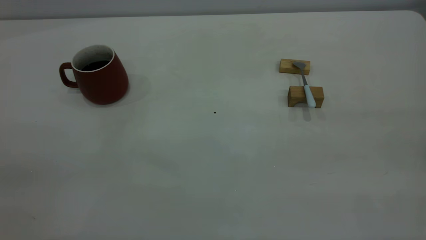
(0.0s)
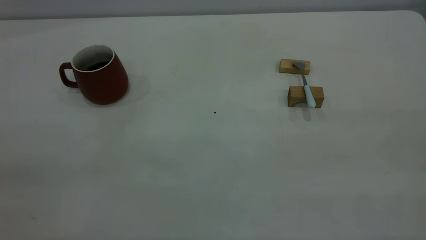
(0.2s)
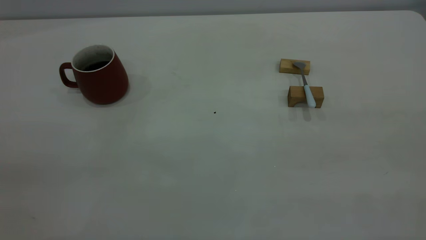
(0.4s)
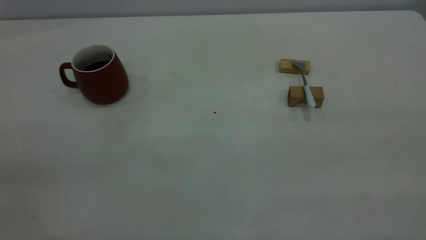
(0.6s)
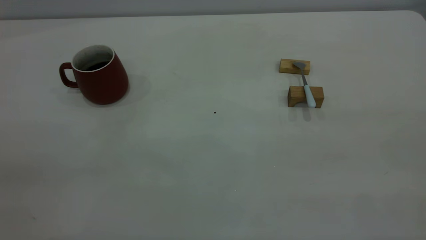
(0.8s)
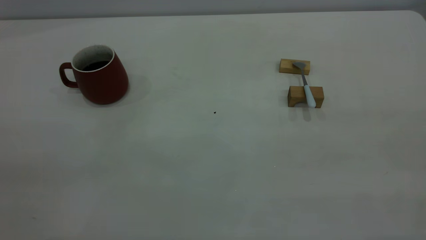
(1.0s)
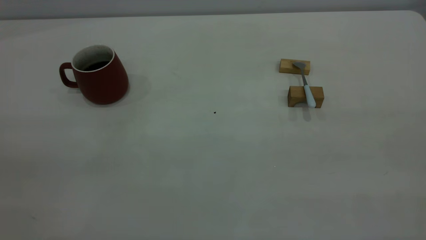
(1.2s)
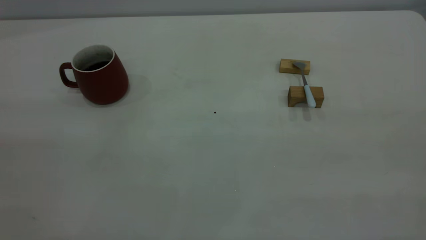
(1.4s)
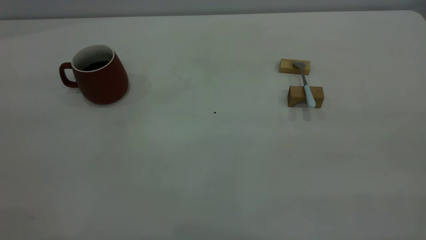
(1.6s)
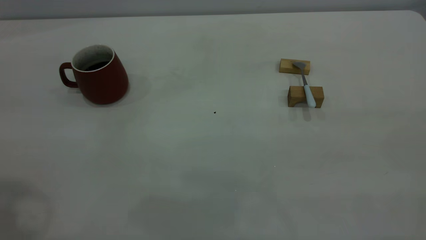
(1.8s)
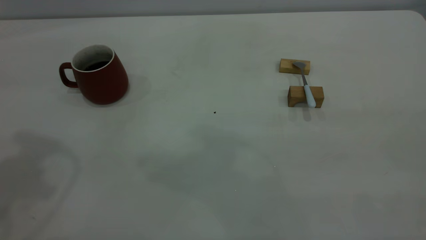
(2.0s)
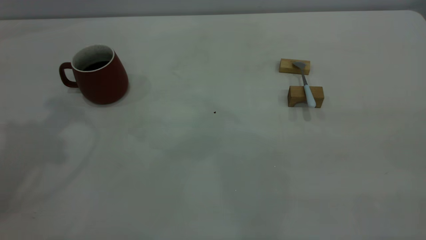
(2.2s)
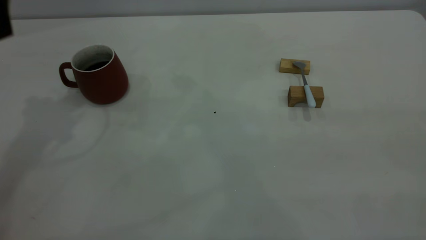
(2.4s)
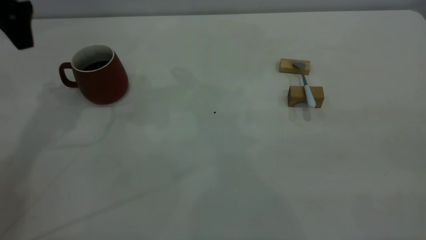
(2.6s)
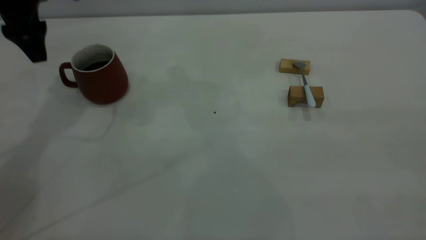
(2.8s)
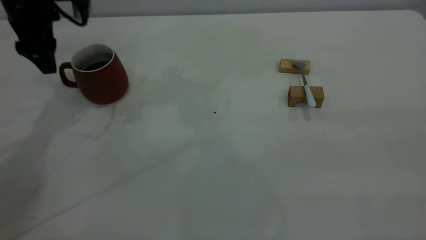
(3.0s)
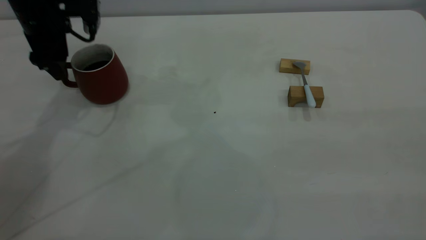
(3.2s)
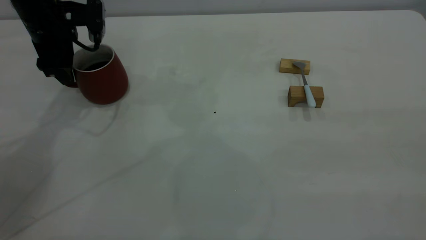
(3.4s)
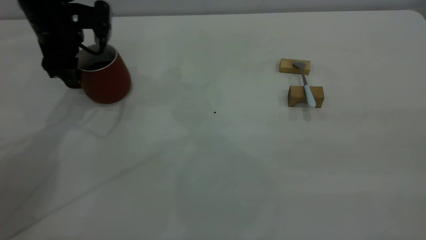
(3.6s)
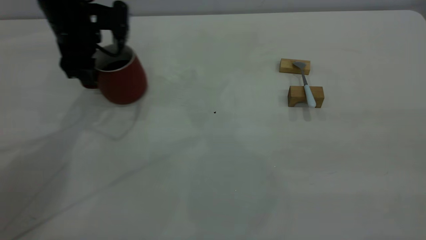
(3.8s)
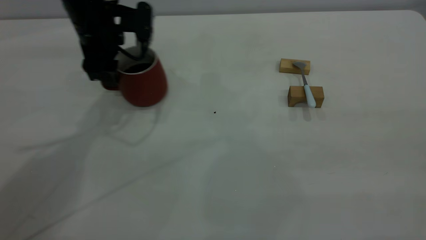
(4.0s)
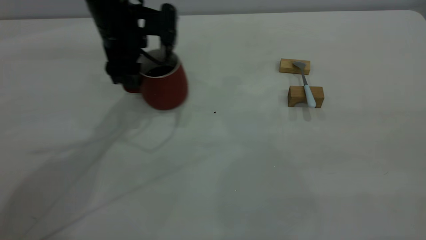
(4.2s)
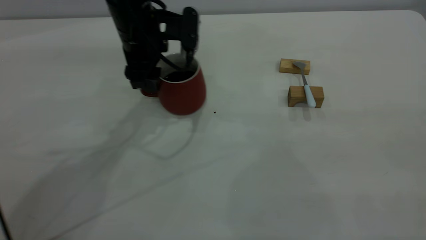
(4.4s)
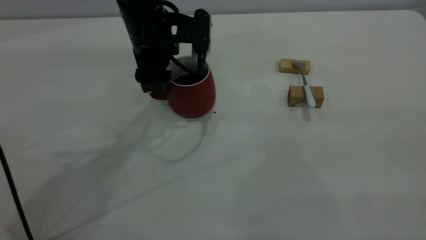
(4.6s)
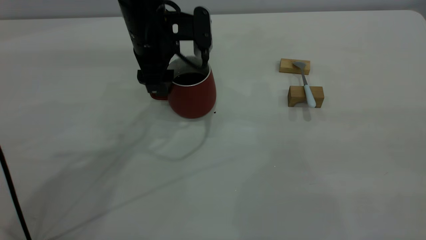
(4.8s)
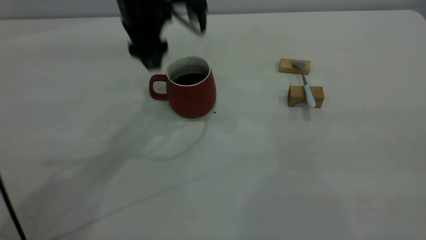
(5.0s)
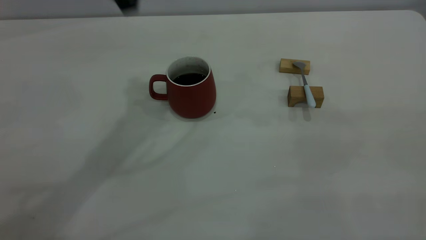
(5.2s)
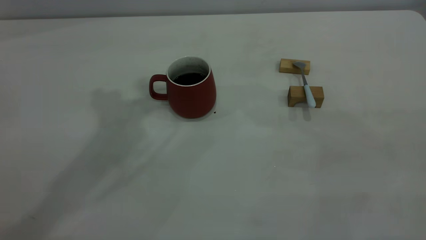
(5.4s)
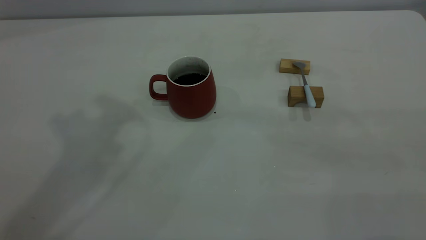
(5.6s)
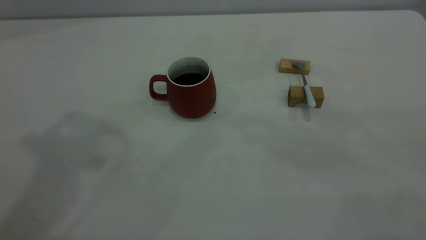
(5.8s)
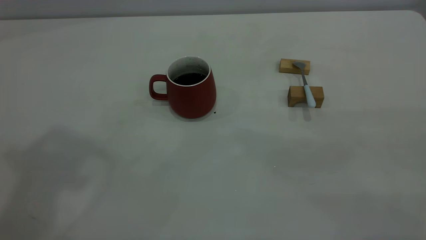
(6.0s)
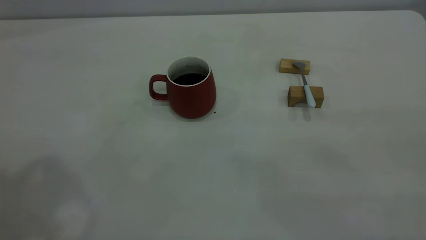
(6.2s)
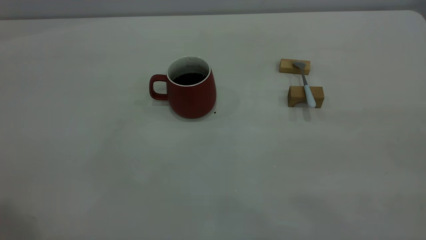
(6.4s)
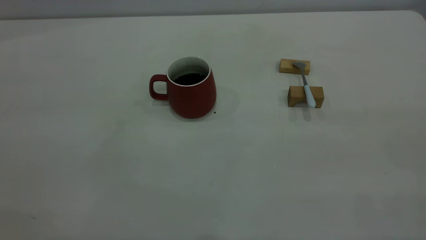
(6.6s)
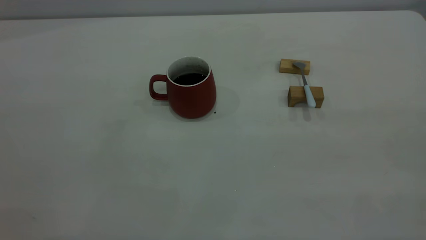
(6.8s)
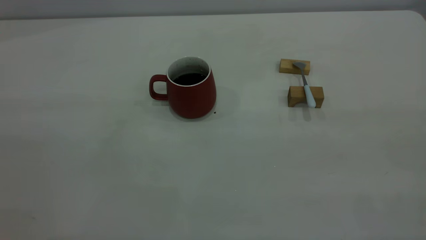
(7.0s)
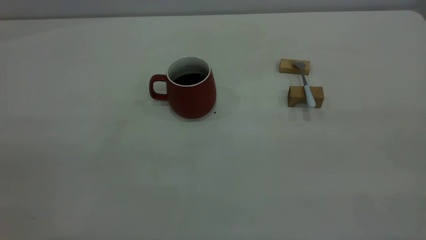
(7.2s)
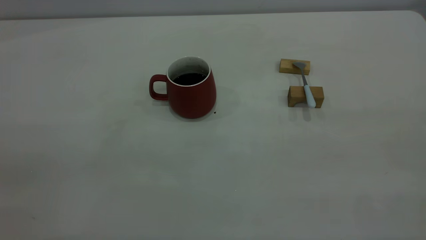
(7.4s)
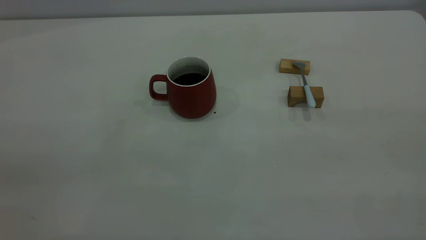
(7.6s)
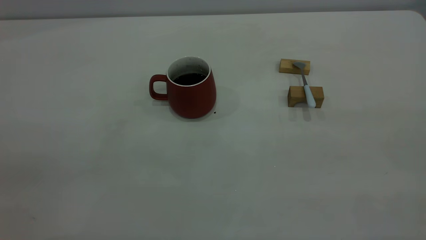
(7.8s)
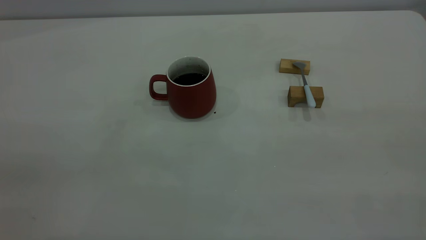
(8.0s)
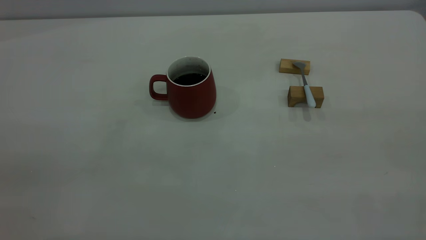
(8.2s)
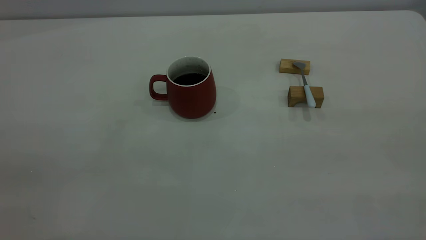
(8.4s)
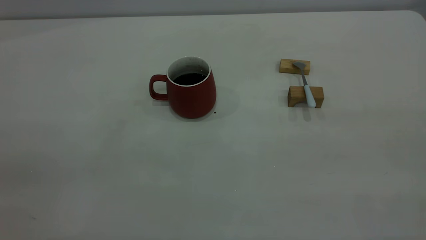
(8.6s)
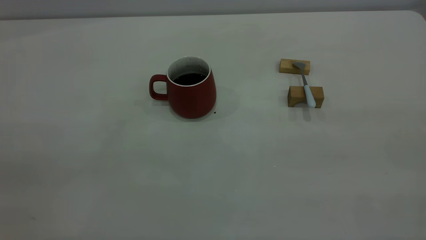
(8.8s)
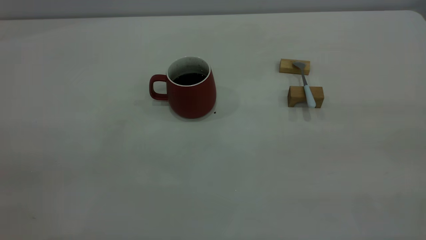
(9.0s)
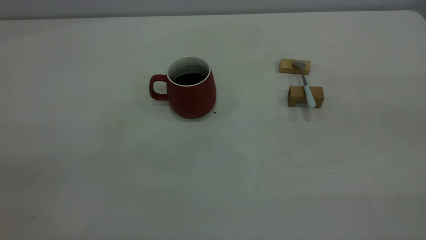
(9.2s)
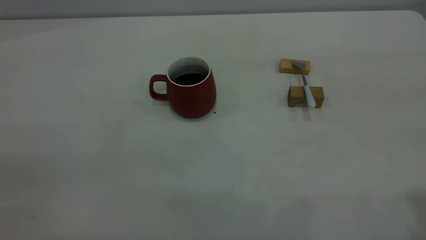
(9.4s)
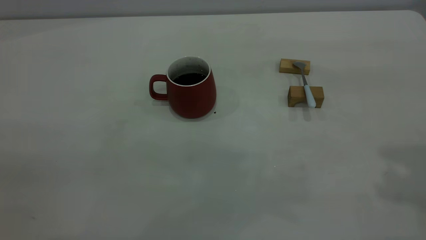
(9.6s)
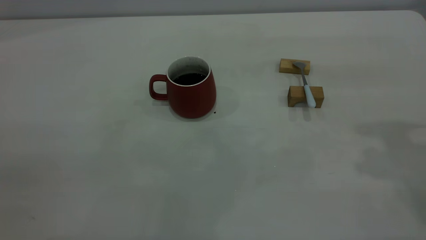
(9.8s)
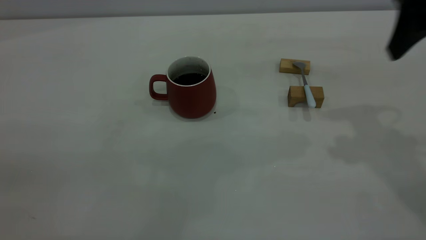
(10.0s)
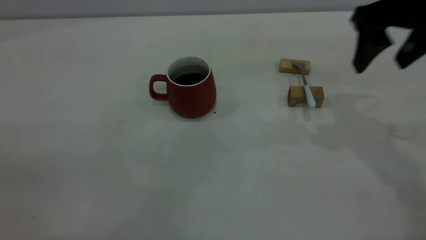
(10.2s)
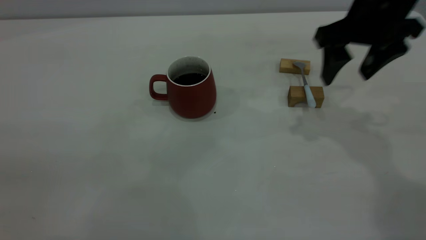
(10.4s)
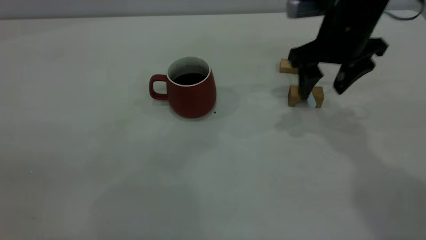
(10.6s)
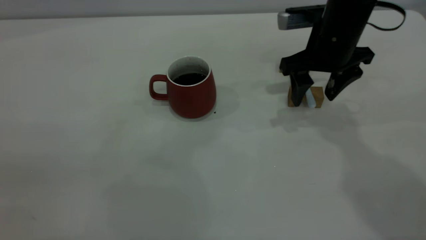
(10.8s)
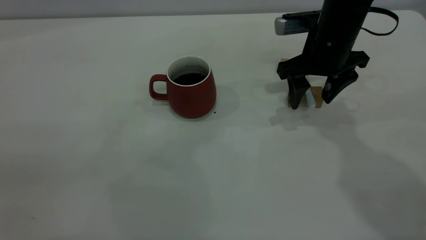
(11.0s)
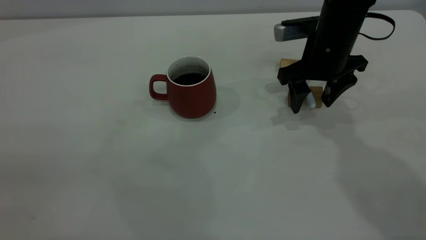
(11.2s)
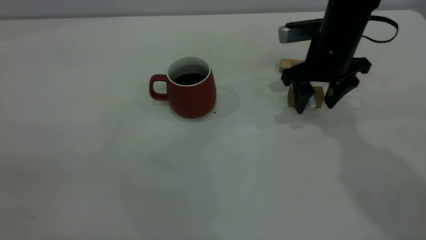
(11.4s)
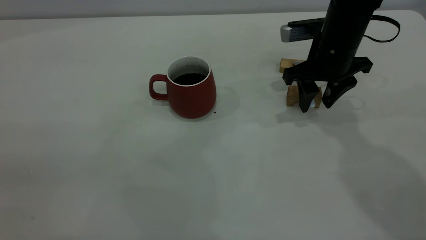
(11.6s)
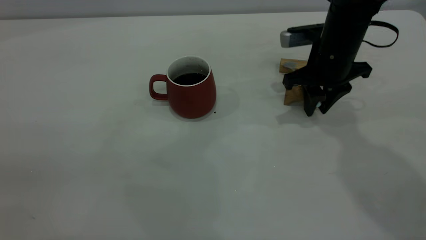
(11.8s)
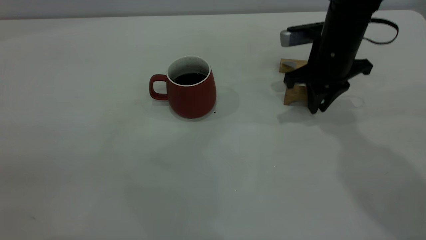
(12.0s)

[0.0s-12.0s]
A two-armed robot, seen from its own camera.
Step, 0.0s to 4.8s: Move the cup with coffee to the center of view.
1.6s to 3.0s: The left gripper heads forward and downward, covering some 40 cm, and opens up.
3.0s to 4.4s: The left gripper moves to the right, some 15 cm.
4.4s to 6.0s: The left gripper goes about 40 cm upward and backward.
9.0s to 10.4s: The right gripper is displaced forward and downward by some 40 cm.
10.4s to 12.0s: The right gripper travels downward by some 5 cm, and closes.

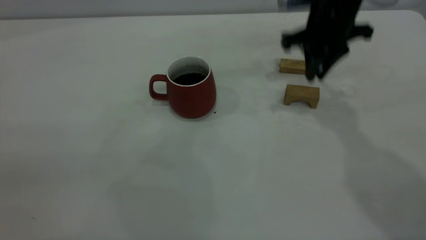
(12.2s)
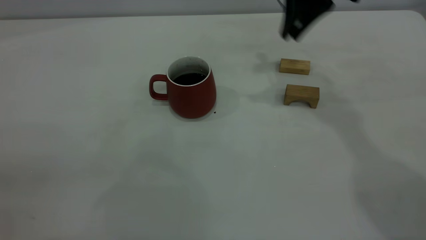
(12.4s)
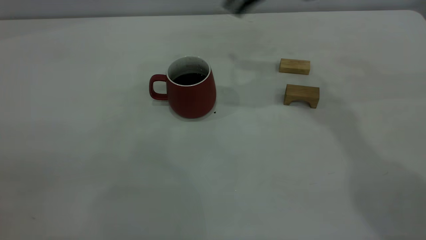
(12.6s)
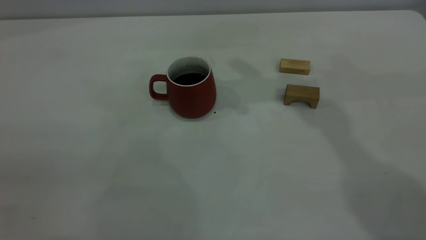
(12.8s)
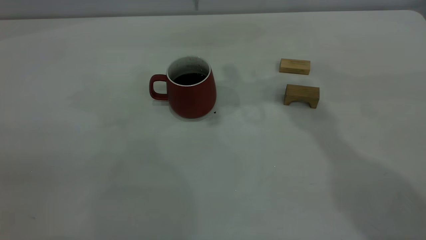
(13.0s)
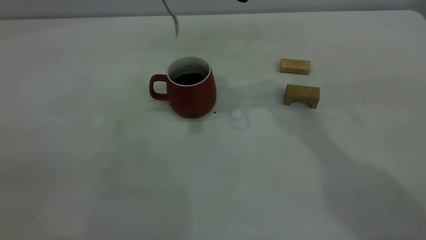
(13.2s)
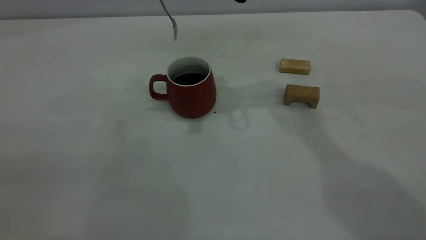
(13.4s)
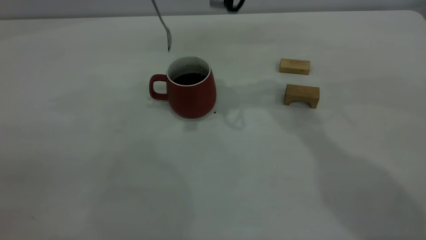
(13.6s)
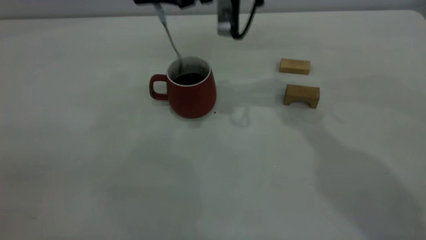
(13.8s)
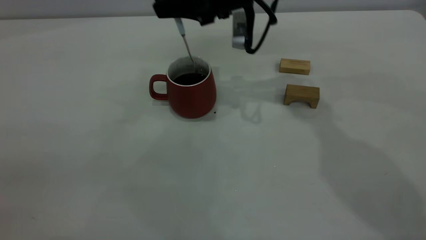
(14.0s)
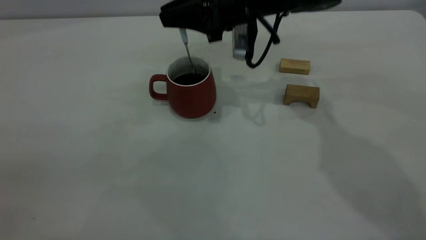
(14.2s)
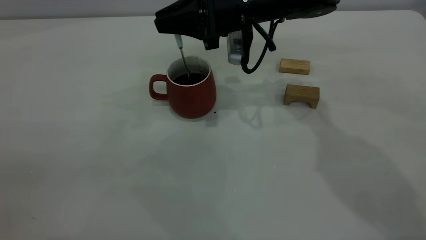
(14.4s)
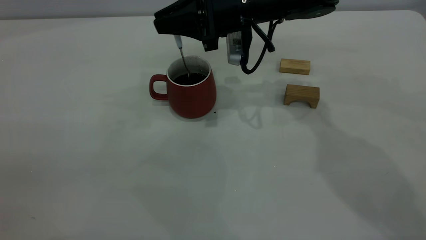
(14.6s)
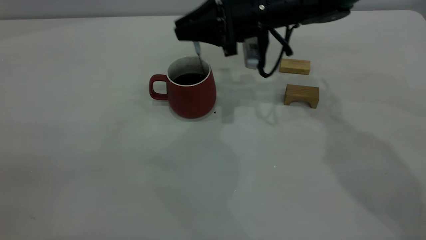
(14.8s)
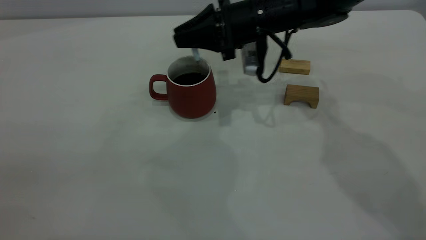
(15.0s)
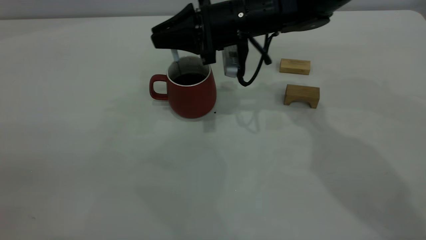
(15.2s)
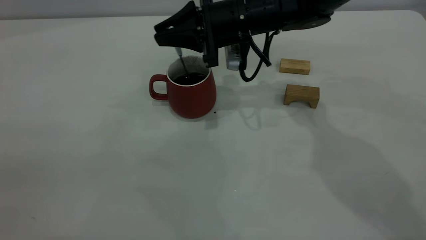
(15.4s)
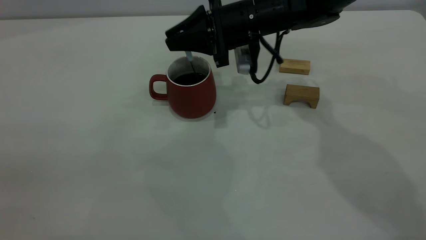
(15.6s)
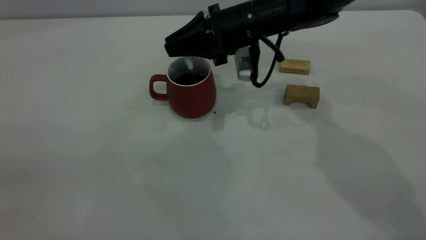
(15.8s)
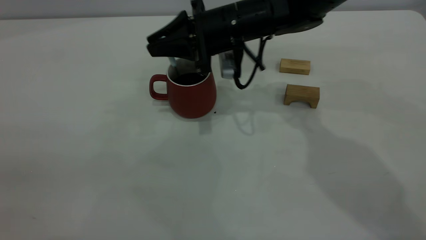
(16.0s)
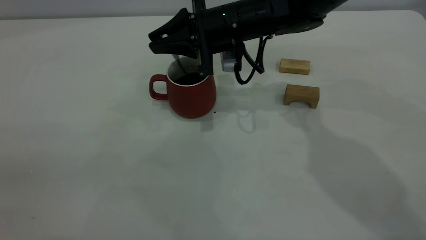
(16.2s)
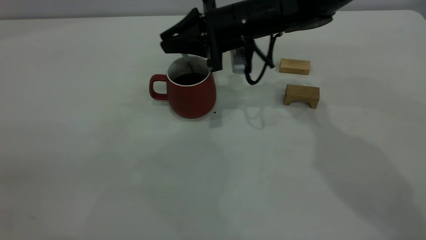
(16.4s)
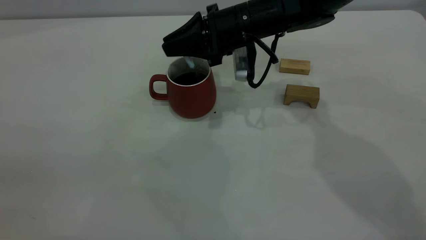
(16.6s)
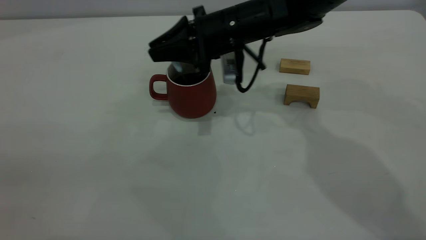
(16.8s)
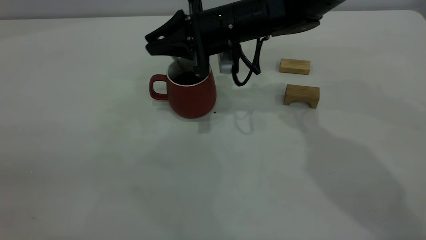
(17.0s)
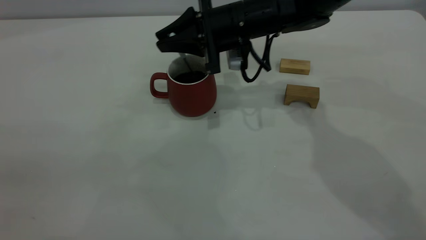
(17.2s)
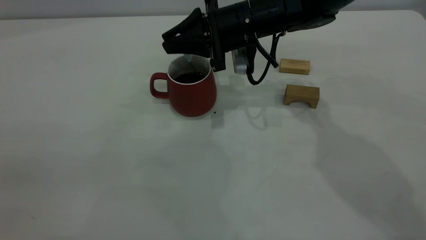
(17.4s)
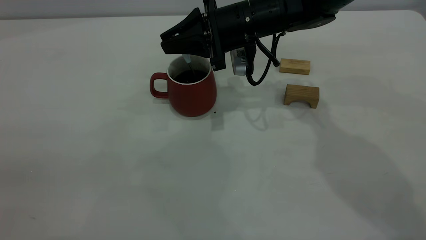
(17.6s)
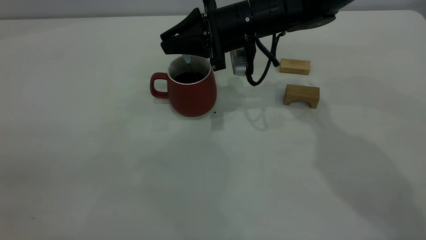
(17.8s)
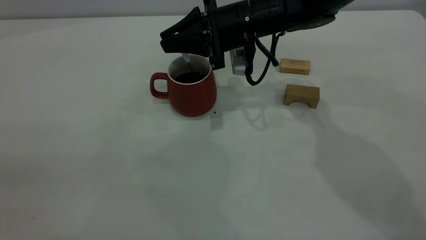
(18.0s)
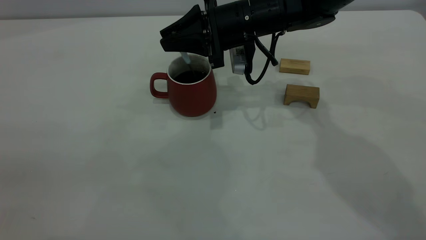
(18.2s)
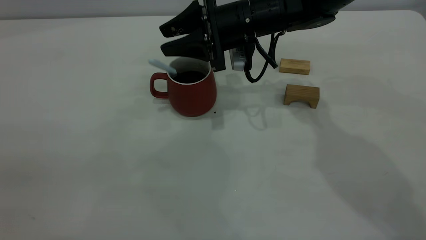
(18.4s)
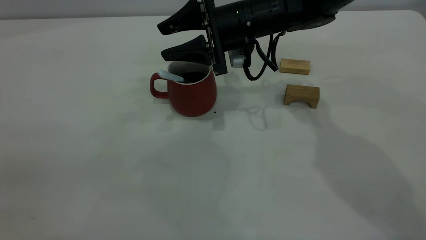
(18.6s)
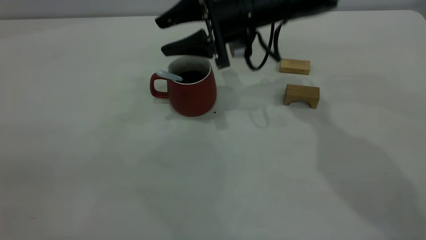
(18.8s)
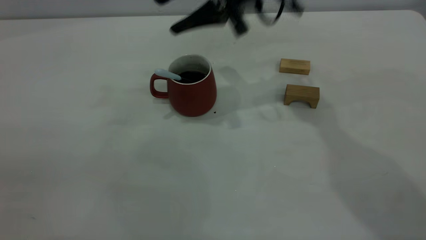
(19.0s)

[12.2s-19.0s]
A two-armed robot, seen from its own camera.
Step, 12.2s to 18.6s: Stir the coffee in the cup.
12.2s to 13.6s: The right gripper heads to the left, covering approximately 15 cm.
13.6s to 15.0s: The right gripper goes approximately 10 cm downward.
15.0s to 16.2s: The grippers make only small movements.
17.6s to 19.0s: The right gripper goes roughly 15 cm upward, and opens its fingers.
